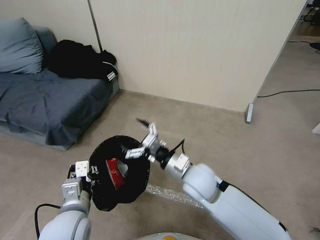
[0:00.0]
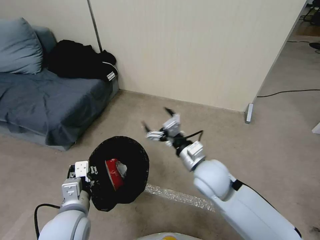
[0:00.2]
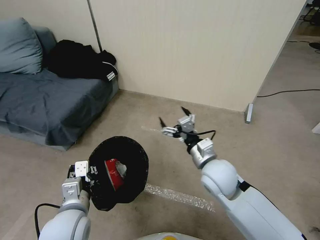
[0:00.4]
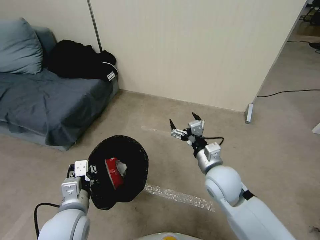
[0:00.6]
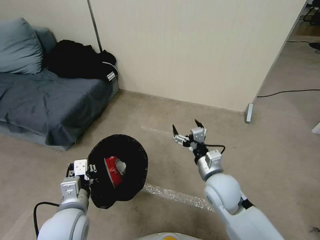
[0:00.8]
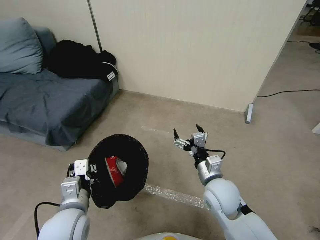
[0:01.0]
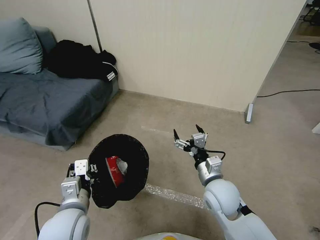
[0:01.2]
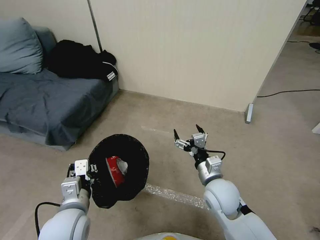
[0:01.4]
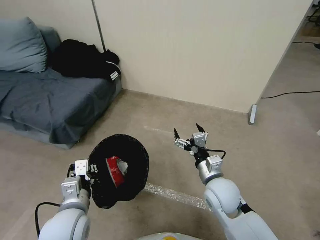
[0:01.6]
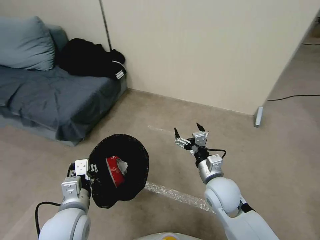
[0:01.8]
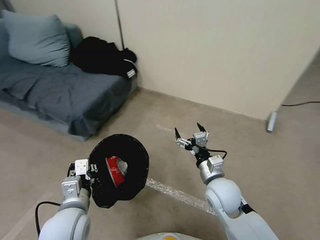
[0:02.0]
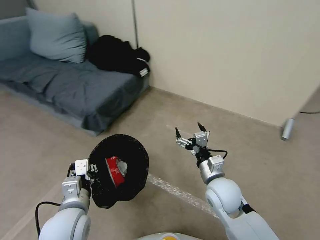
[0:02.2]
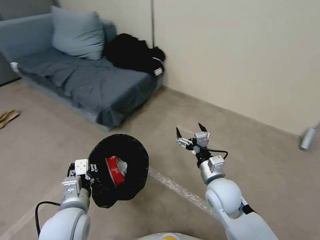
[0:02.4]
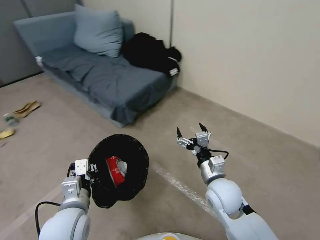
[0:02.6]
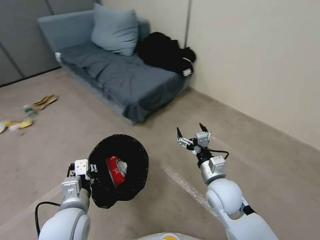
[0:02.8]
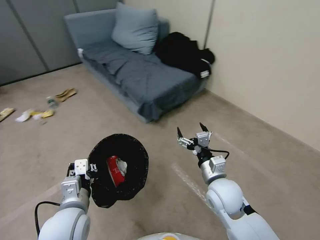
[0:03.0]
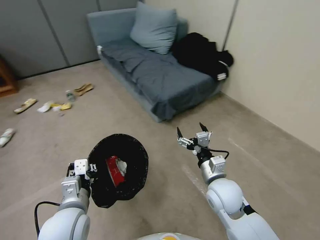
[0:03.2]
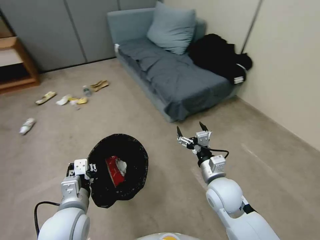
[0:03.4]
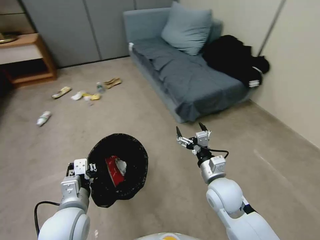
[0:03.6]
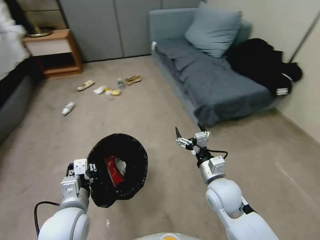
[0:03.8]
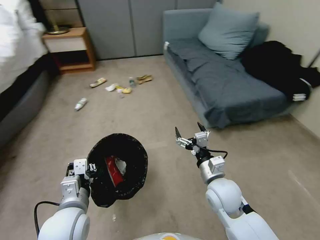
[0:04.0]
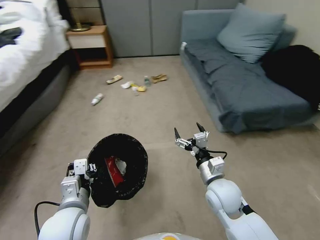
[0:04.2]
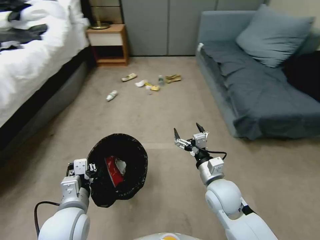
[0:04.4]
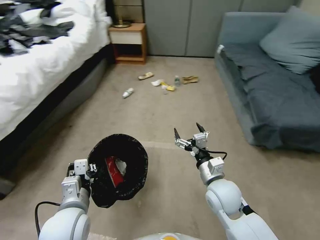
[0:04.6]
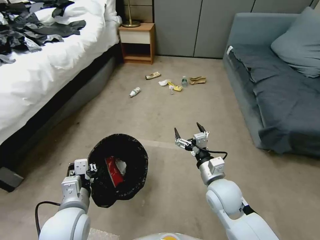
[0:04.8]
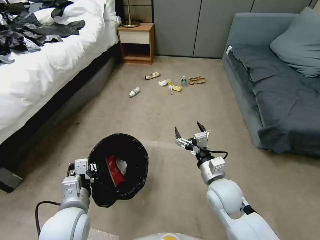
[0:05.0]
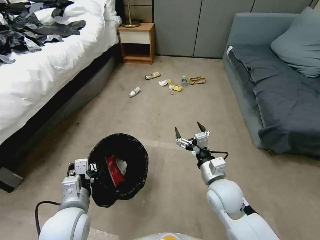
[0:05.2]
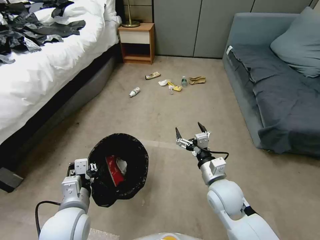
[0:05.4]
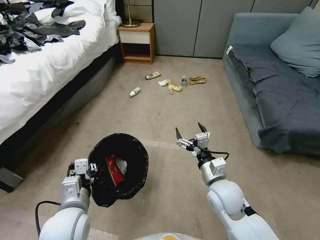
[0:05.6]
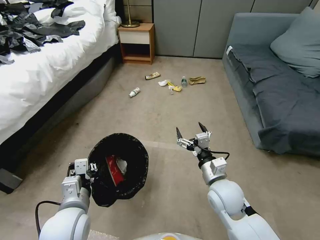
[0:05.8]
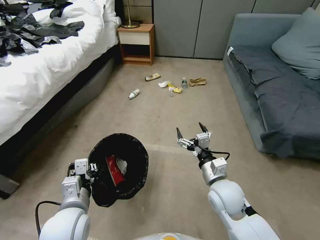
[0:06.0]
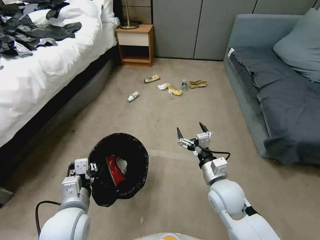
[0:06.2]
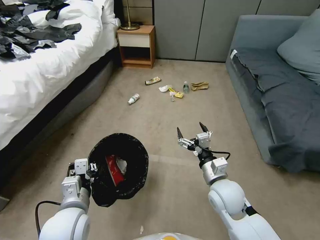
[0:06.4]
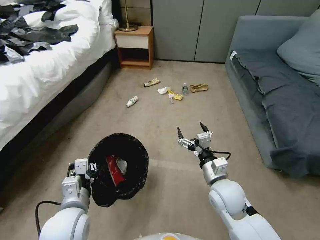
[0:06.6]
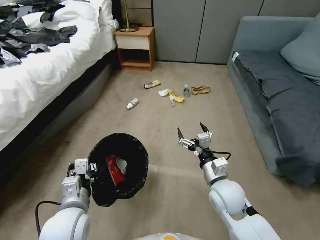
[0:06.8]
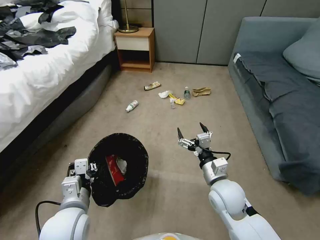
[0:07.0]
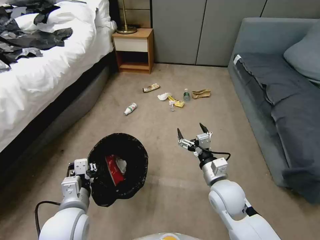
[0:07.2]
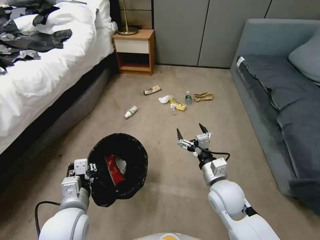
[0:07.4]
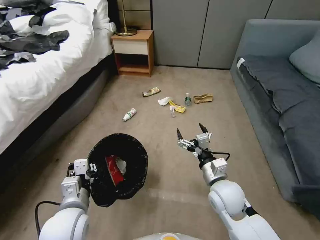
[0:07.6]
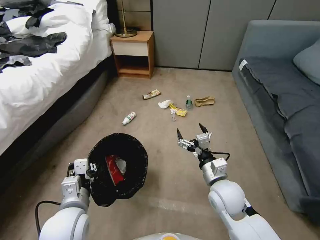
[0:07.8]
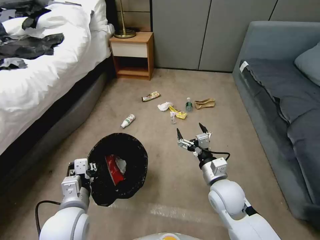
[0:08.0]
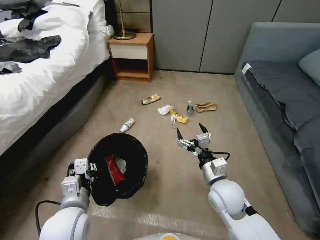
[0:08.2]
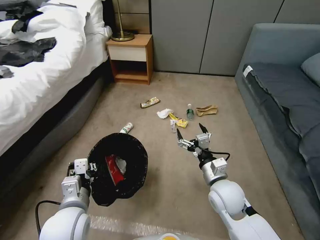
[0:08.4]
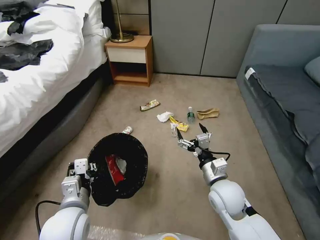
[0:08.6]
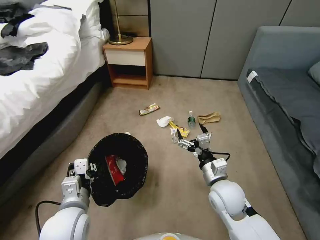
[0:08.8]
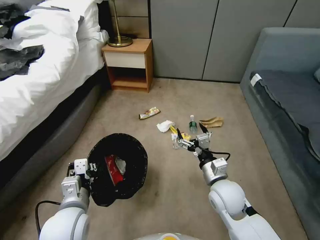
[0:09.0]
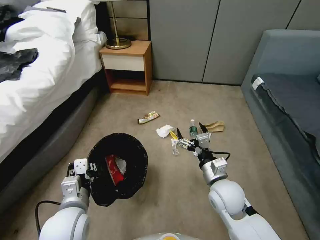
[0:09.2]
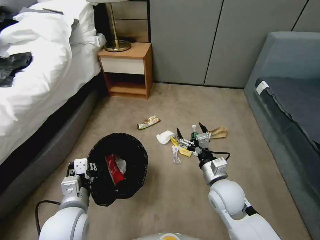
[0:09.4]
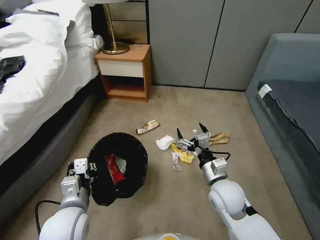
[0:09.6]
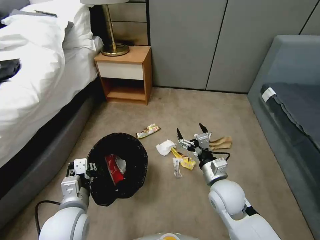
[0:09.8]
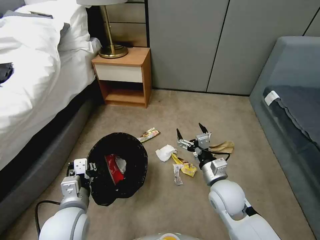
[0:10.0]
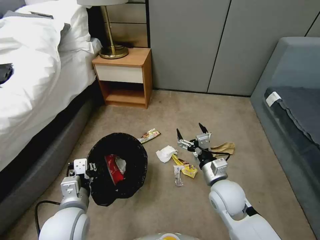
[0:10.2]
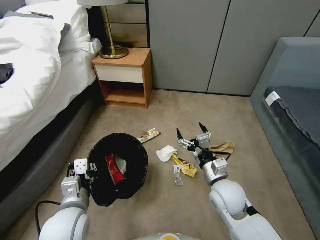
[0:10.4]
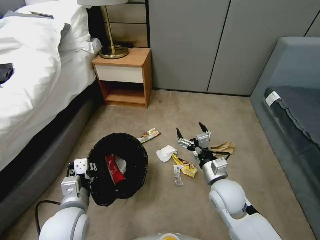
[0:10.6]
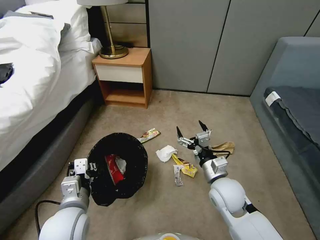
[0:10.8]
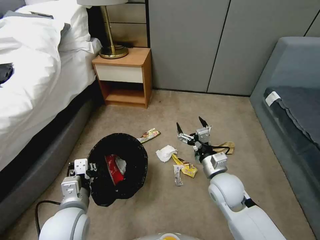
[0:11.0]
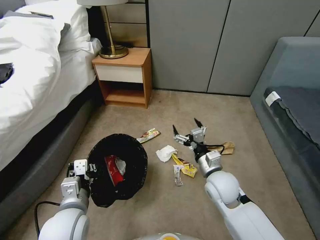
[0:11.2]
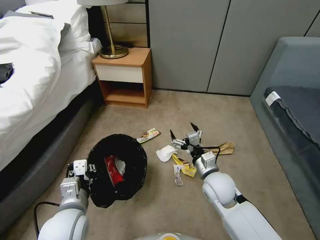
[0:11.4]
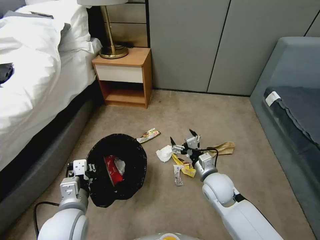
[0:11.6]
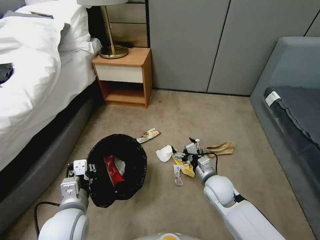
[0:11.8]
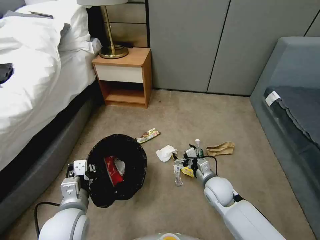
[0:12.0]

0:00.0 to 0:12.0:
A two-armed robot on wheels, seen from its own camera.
Task of the whole recording: Pick up the trash bin, then pick up the garbage from the floor and place it into the trash bin.
0:00.0 to 0:01.6: The right gripper goes about 5 cm to the right.
0:10.4 to 0:12.0: The right gripper moves downward, approximately 10 cm.

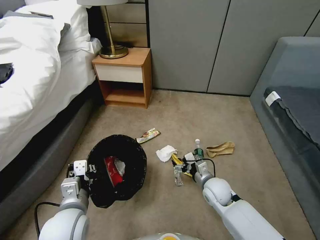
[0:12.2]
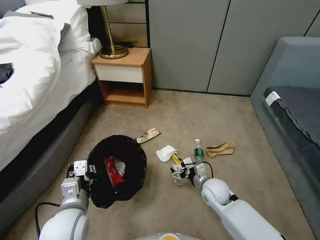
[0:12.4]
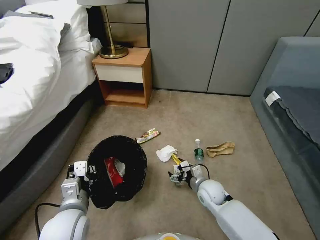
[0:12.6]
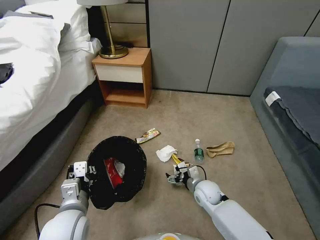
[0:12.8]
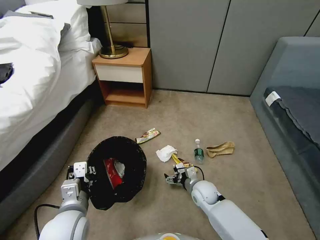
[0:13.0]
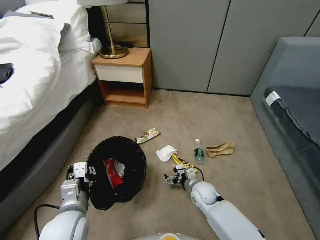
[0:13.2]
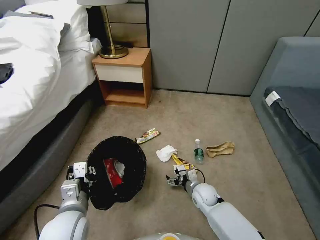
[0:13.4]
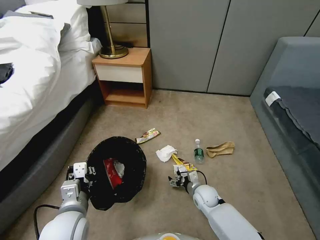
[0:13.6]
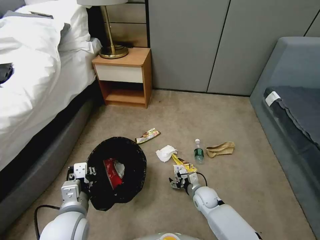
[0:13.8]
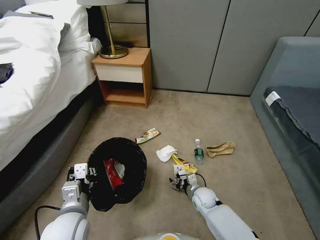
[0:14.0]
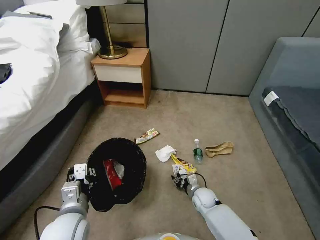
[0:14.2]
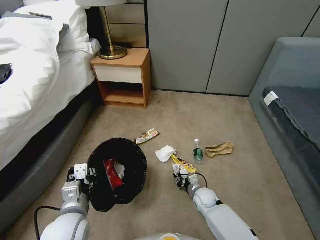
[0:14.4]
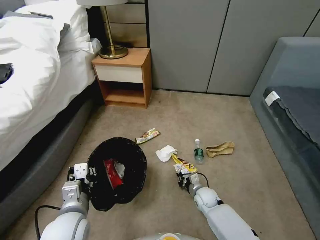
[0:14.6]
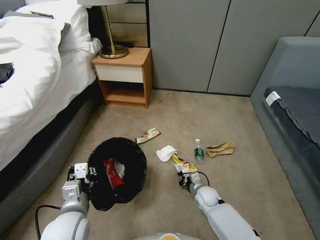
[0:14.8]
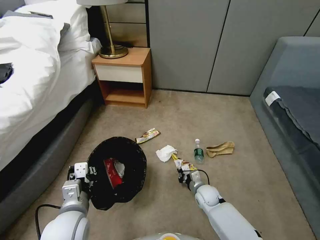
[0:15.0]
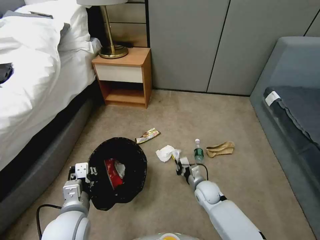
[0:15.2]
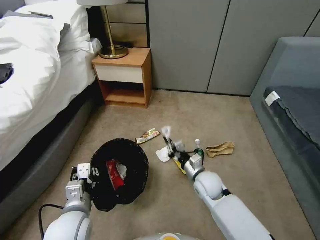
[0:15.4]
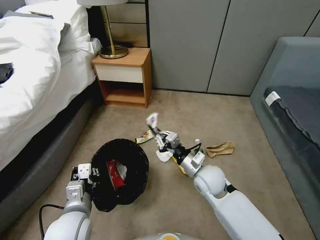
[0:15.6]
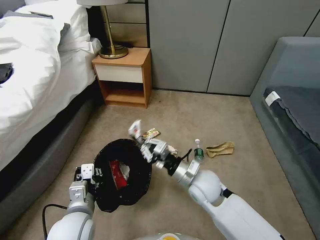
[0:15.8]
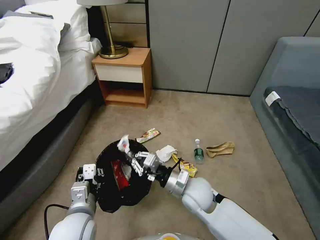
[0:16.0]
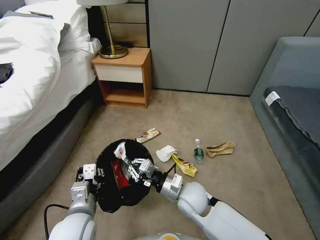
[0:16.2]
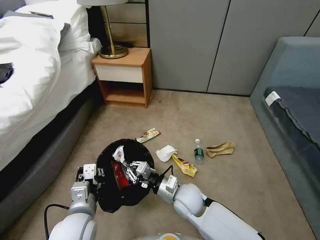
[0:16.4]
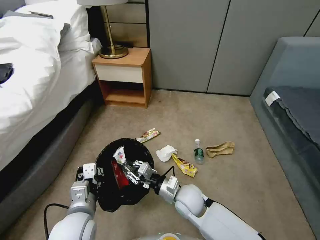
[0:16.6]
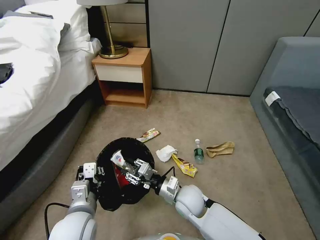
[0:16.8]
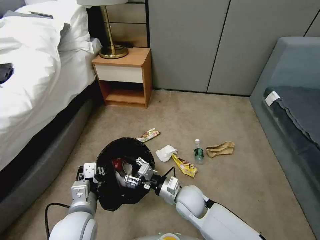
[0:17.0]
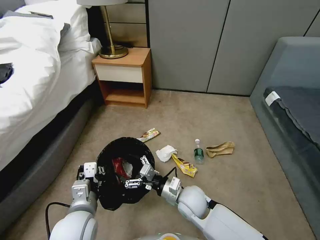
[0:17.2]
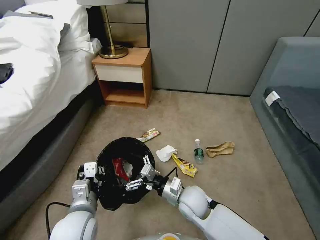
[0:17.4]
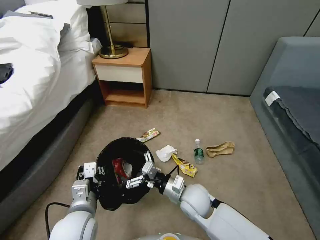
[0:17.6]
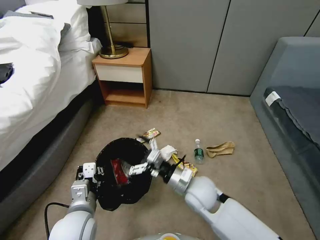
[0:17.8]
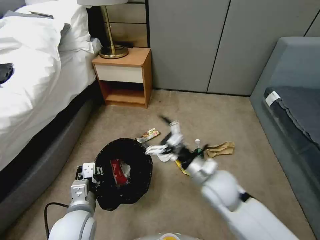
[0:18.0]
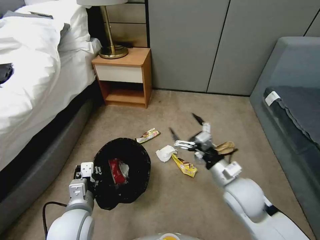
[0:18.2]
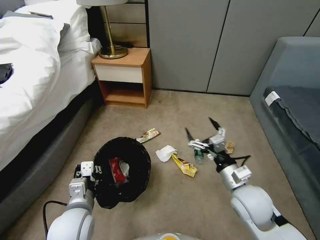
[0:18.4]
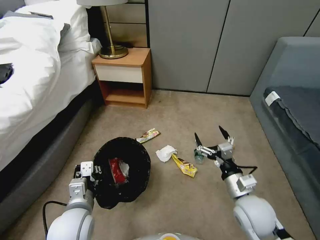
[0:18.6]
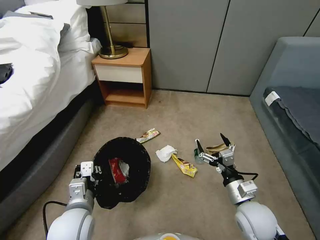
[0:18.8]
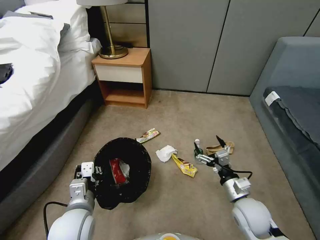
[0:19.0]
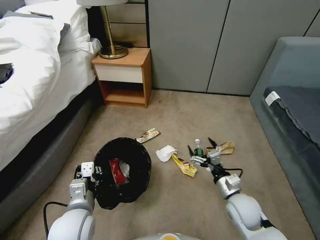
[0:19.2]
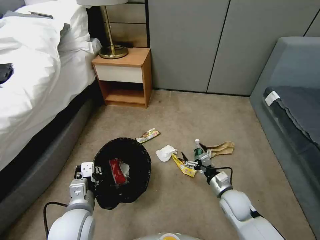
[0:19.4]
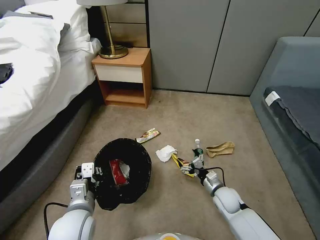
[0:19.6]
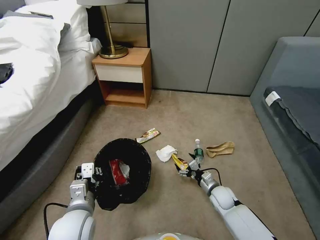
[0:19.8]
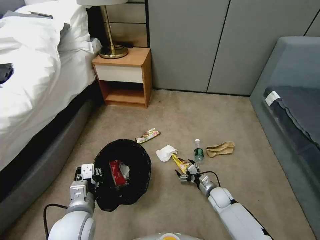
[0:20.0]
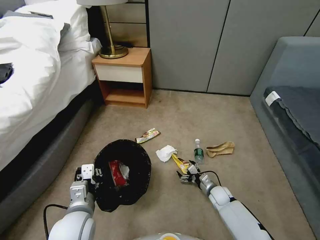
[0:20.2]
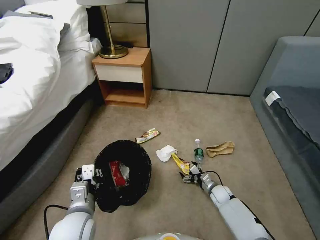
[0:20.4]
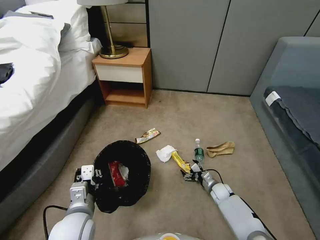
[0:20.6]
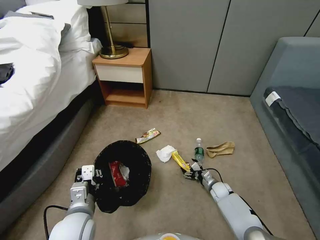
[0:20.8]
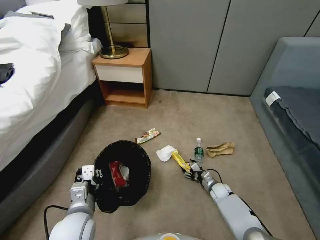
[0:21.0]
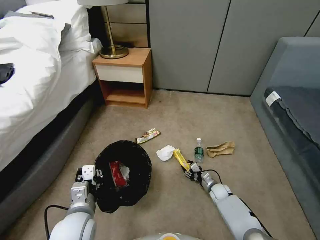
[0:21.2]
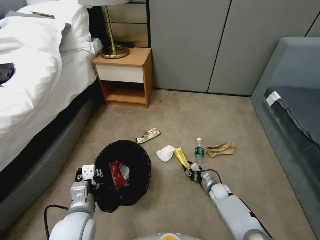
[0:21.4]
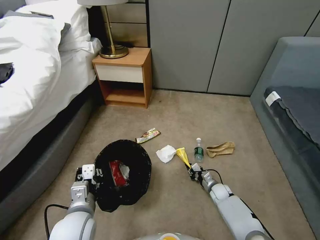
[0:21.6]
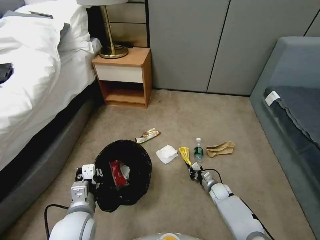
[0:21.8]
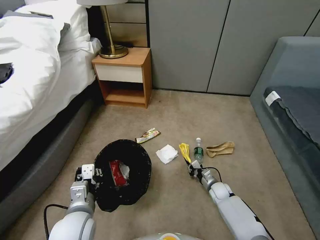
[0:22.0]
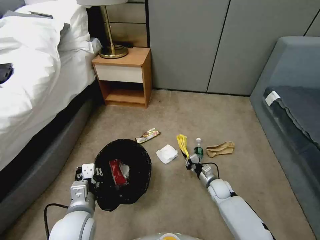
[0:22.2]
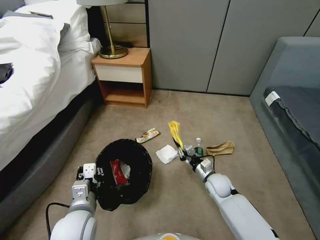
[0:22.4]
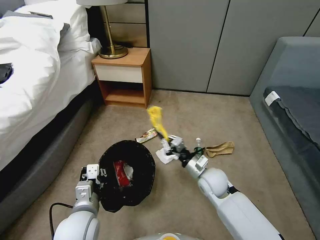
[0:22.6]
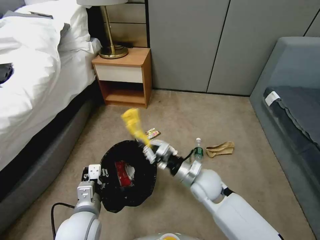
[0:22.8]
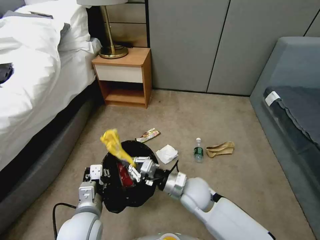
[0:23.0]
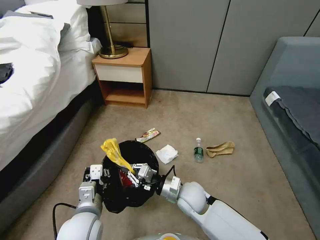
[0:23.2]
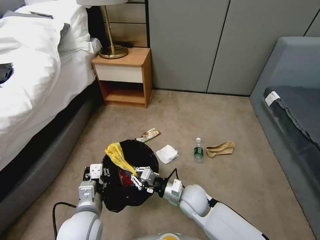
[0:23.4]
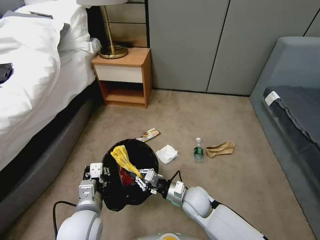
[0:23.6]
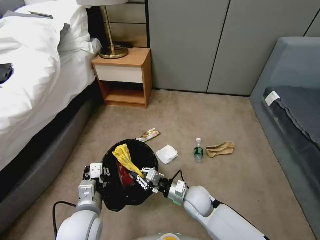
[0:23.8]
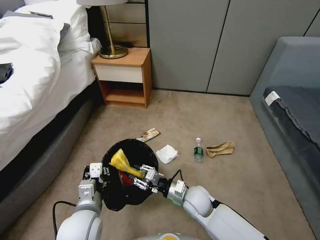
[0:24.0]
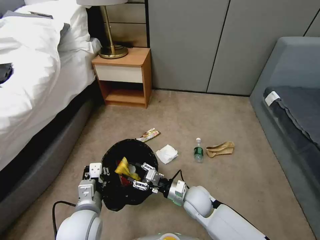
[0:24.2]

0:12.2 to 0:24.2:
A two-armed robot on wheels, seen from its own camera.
Task of the whole recording: Pick up the trash bin, then pick up the garbage from the floor and place it into the trash bin.
0:12.2 to 0:13.8: The right gripper heads downward, covering about 10 cm.
0:13.8 to 0:15.2: The right gripper ends up about 5 cm from where it was, and closes its fingers.
0:15.2 to 0:16.6: The right gripper goes about 15 cm to the left, upward and backward.
0:16.6 to 0:18.2: The right gripper heads to the right and upward, covering roughly 15 cm, and opens up.
0:18.2 to 0:19.8: The right gripper travels downward by roughly 25 cm.
0:19.8 to 0:21.2: The right gripper travels downward by about 5 cm, and closes its fingers.
0:21.2 to 0:22.6: The right gripper shifts about 25 cm upward and to the left, and closes up.
0:22.6 to 0:24.2: The right gripper shifts approximately 10 cm to the left and backward, and opens up.
